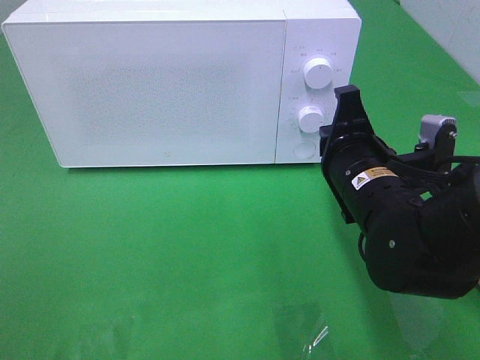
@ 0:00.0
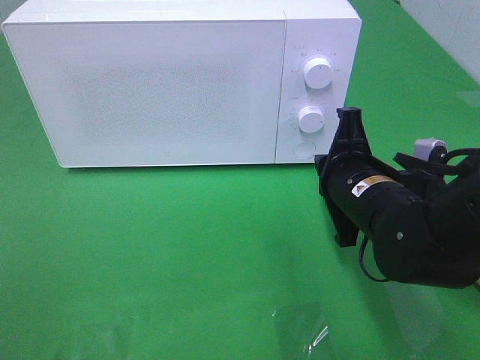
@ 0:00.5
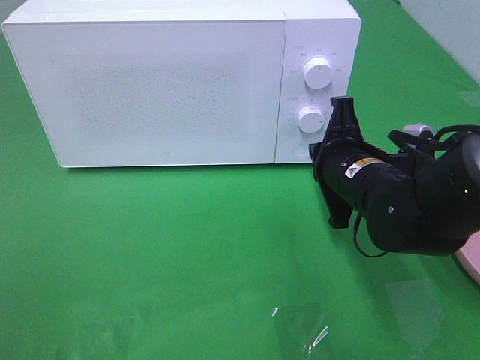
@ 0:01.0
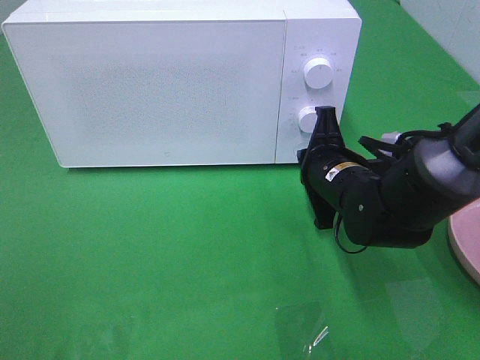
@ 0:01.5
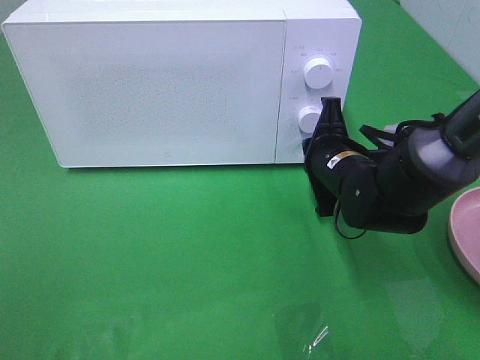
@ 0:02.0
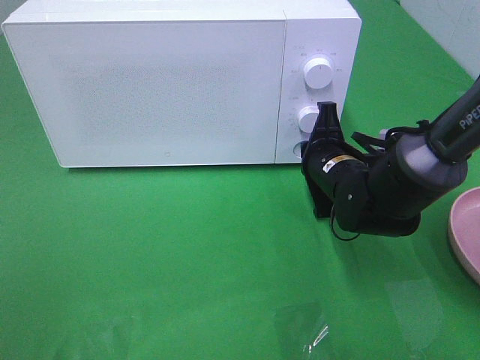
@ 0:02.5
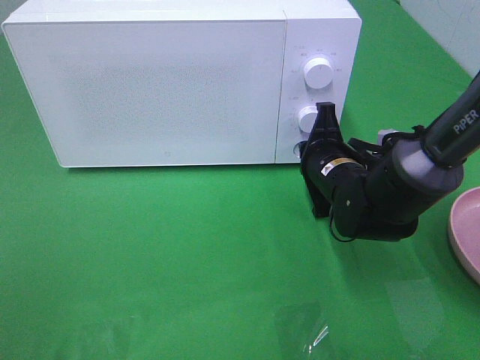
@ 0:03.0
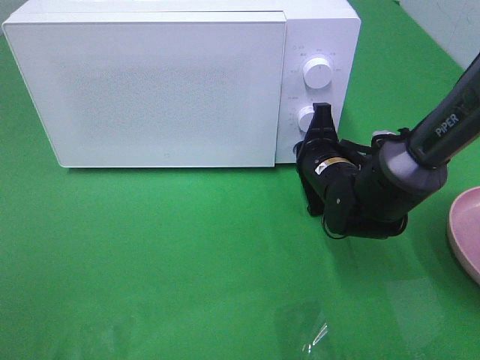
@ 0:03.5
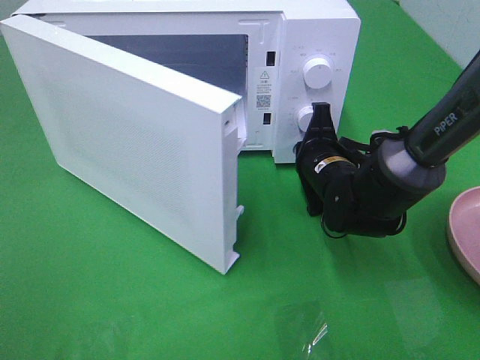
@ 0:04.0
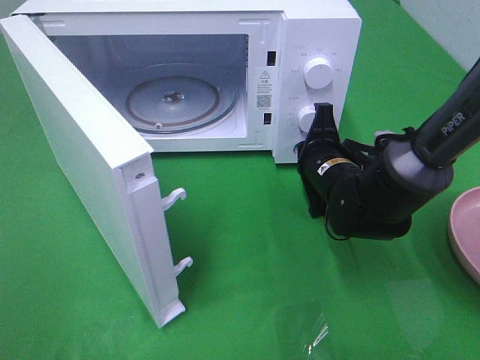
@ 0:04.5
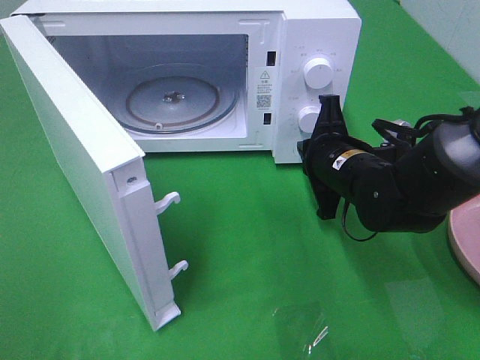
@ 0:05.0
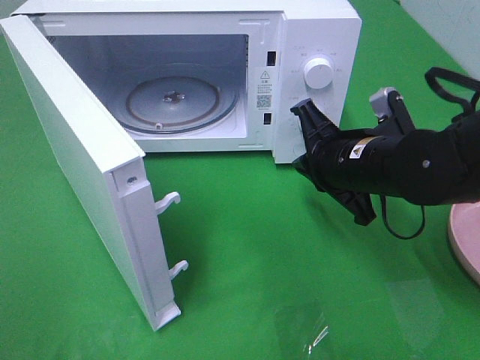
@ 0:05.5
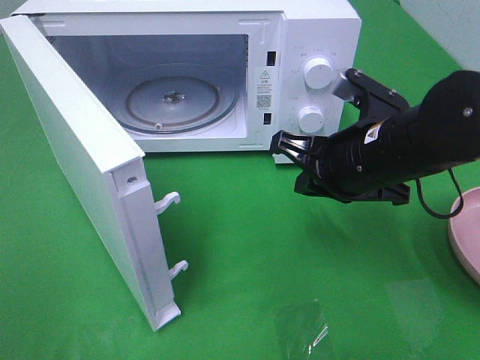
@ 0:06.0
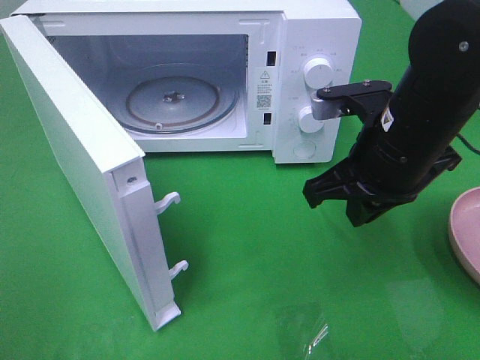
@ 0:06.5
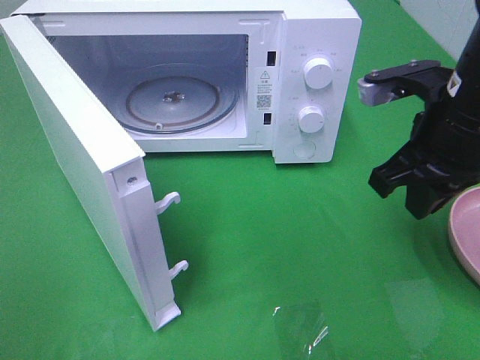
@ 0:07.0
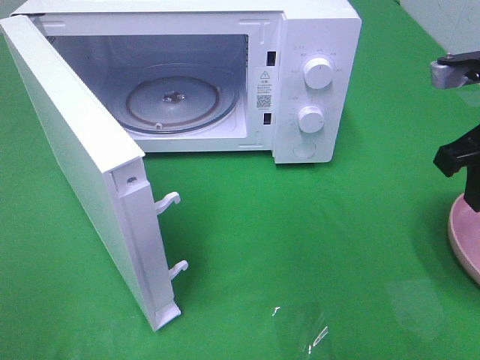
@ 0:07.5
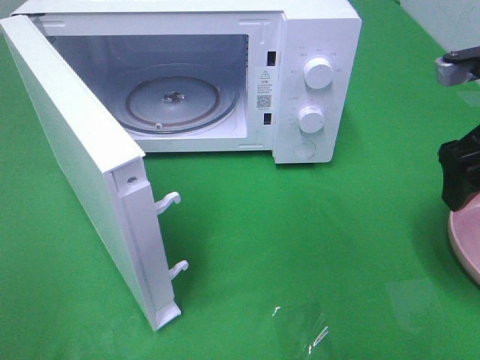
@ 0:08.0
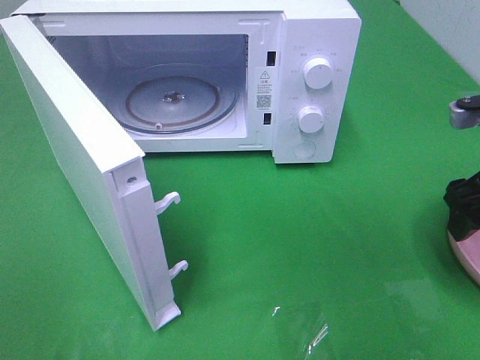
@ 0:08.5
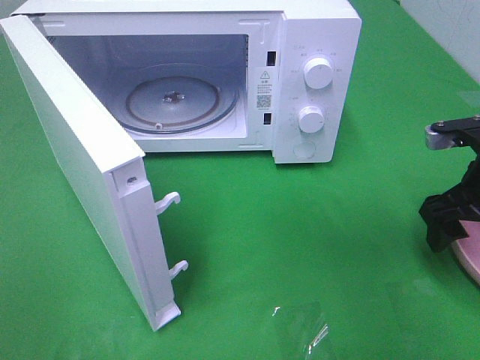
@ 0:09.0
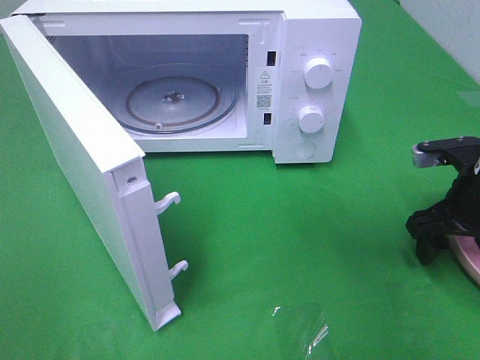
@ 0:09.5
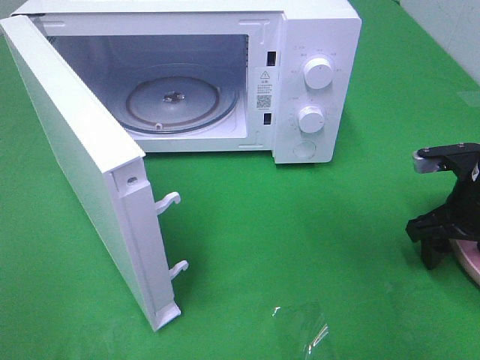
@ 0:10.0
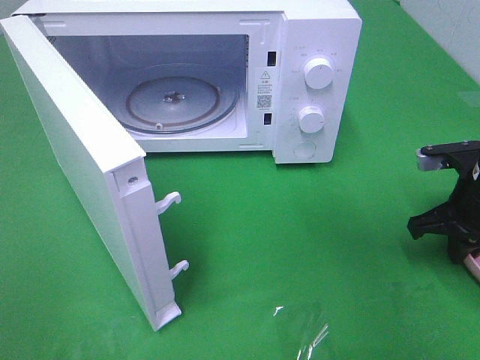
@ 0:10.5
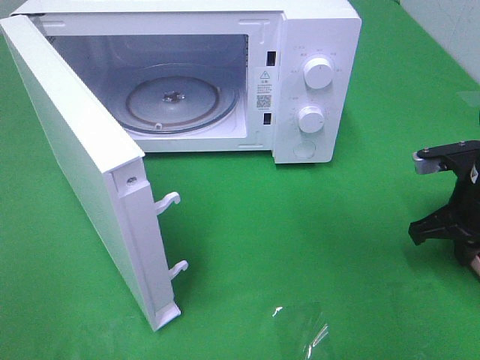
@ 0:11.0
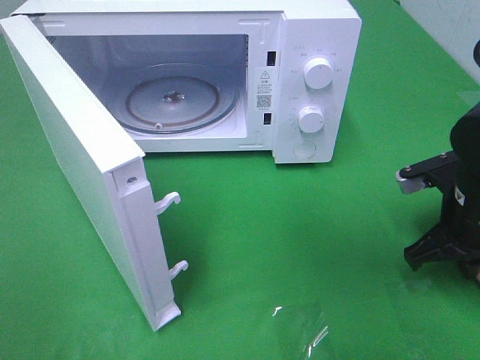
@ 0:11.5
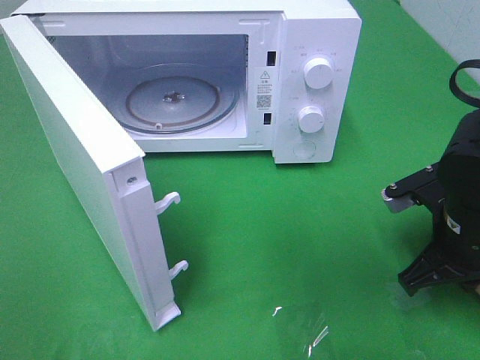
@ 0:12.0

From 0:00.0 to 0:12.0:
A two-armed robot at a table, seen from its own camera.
Task of the whole recording: Heat the burger.
Step, from 0:00.0 to 0:04.5: Right hand: press the switch.
Step, from 0:05.0 to 0:10.5: Right hand: grab the plate with the hamburger.
From 0:00.0 to 0:02.0: The right gripper travels forward and downward by some 10 cm.
From 0:04.0 to 0:06.0: The right gripper goes about 15 cm upward and backward.
From 0:06.0 to 0:08.0: The right gripper goes approximately 15 cm to the right and upward, and opens up.
From 0:08.0 to 0:10.0: The right gripper moves downward, approximately 15 cm.
From 0:10.0 to 0:12.0: The right gripper goes roughly 10 cm to the left and backward, and closes up.

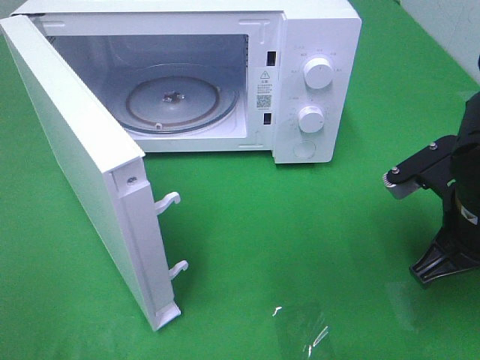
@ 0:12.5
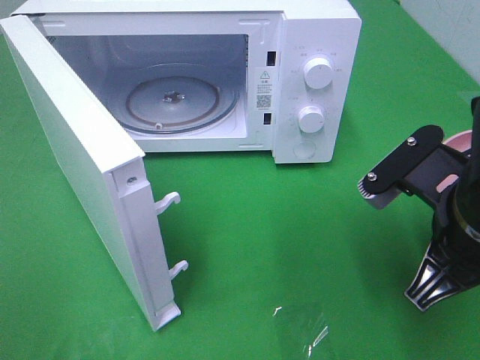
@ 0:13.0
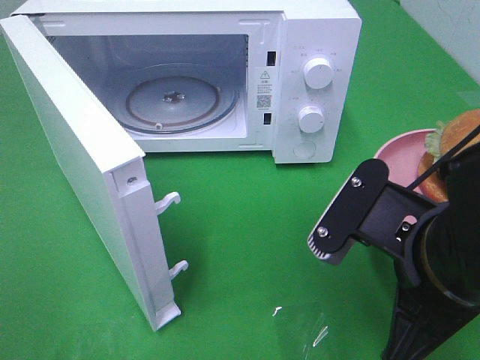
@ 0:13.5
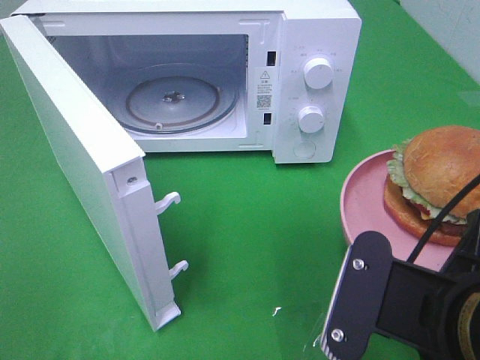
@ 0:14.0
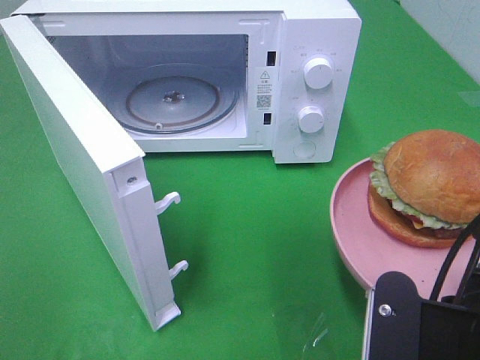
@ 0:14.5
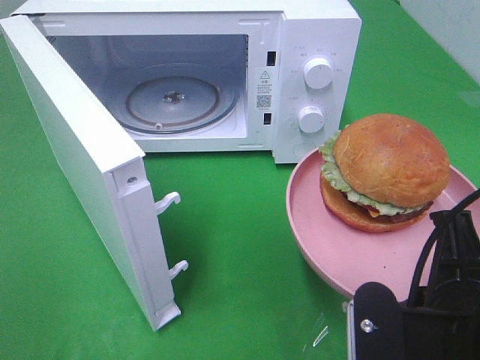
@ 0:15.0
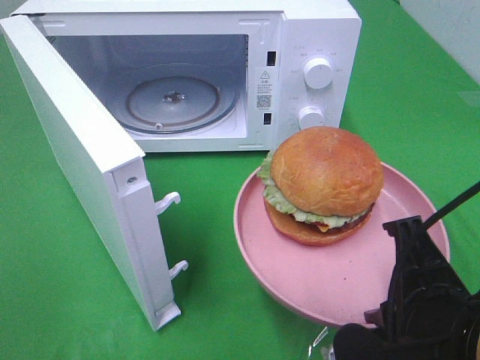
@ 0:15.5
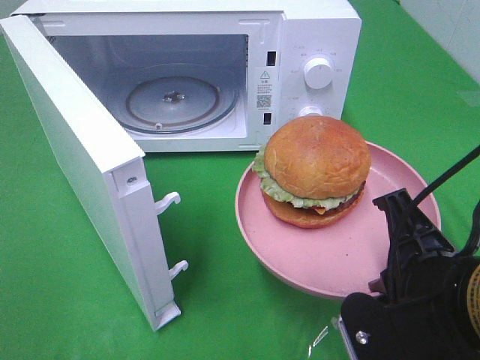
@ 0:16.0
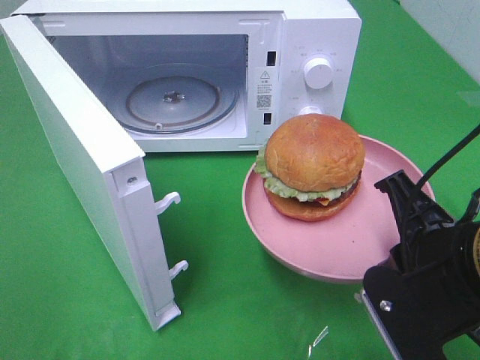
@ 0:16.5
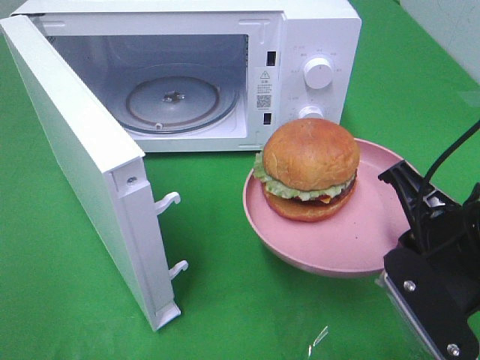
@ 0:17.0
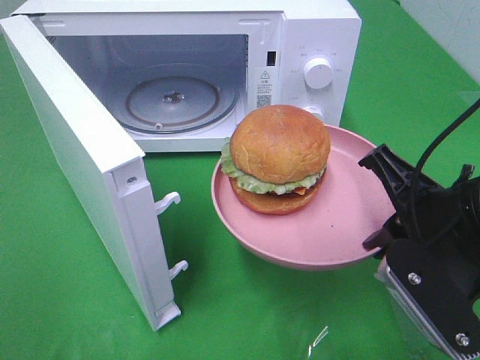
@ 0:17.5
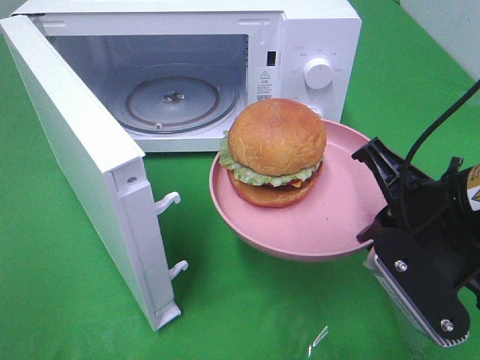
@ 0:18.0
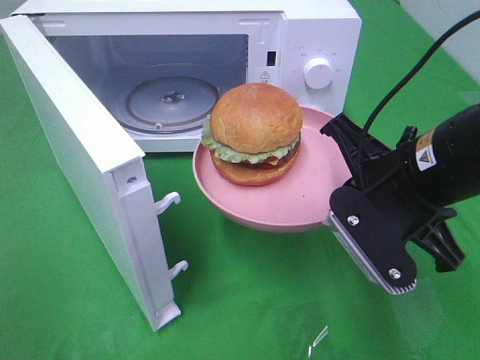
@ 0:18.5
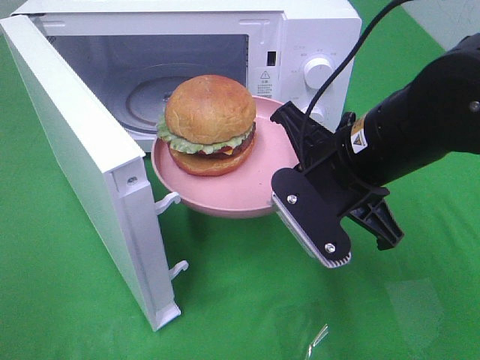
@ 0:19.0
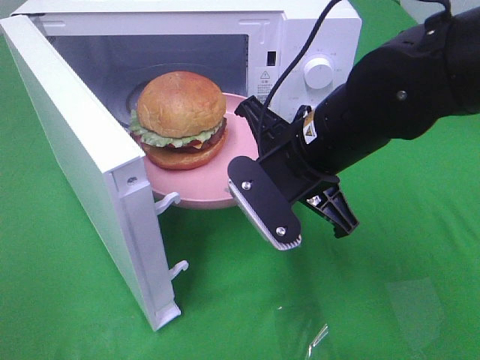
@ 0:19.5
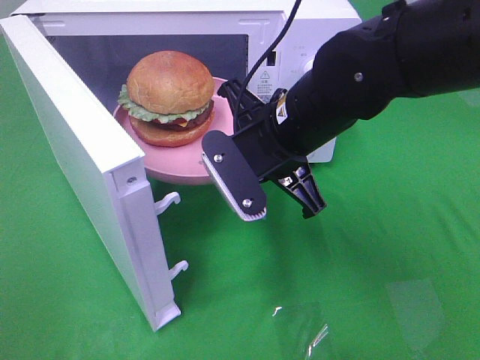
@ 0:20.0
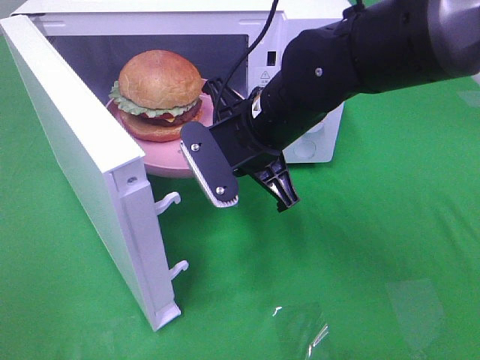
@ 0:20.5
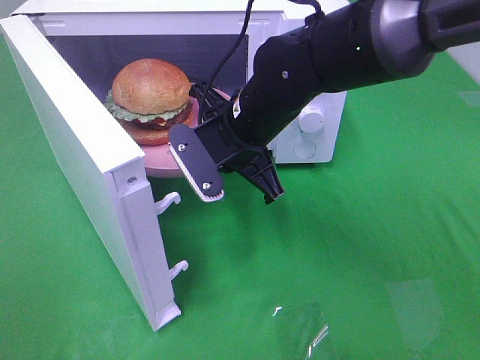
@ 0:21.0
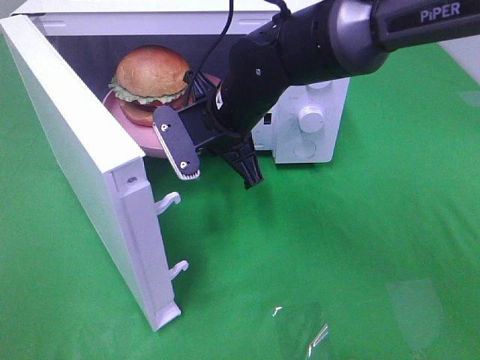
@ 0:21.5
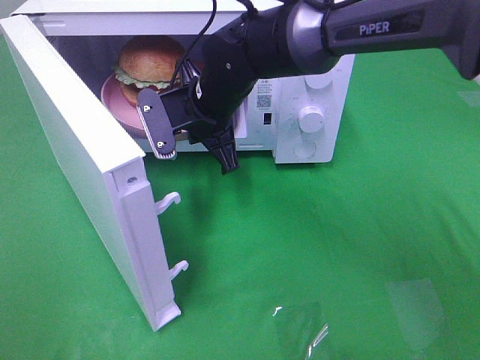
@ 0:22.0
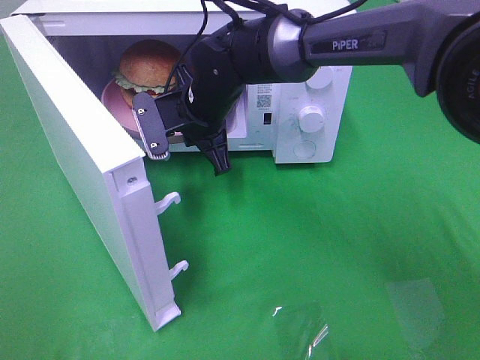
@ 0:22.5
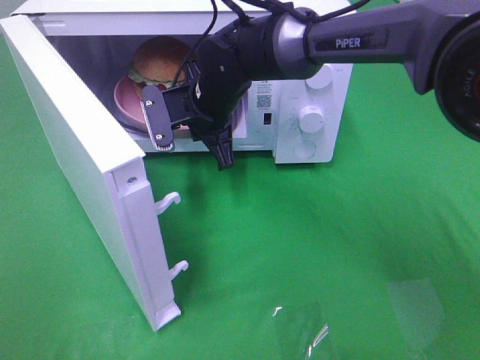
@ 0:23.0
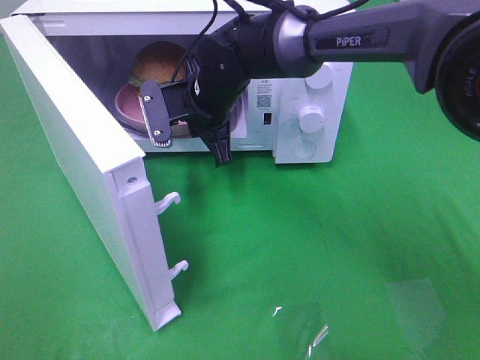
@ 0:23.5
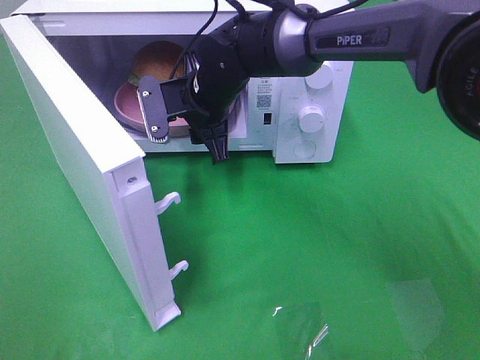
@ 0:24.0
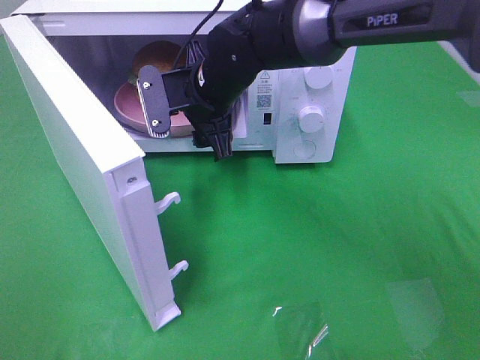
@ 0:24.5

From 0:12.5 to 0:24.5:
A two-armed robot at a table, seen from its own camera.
Task of the whole recording: Heat the burger.
Step, from 0:12.5 to 0:23.5: Right hand: place the plate in the microwave.
From 0:12.5 to 0:14.5: The right gripper heads backward and to the left, covering roughly 15 cm.
From 0:14.5 to 0:16.5: The right gripper is displaced forward by approximately 5 cm.
From 0:16.5 to 0:18.5: The right gripper shifts some 10 cm forward.
From 0:18.5 to 0:20.5: The right gripper travels to the left and forward by about 15 cm.
From 0:20.5 to 0:22.5: The right gripper moves forward and to the left, about 10 cm.
From 0:22.5 to 0:24.5: The right gripper opens its fingers.

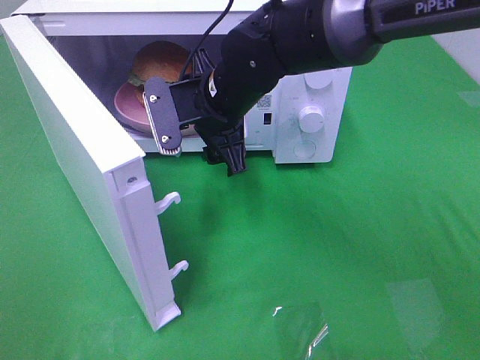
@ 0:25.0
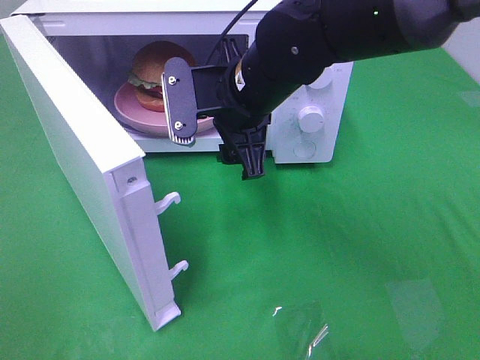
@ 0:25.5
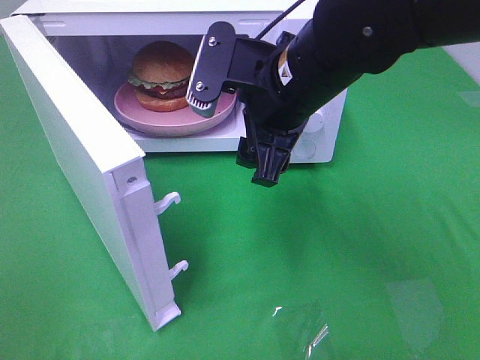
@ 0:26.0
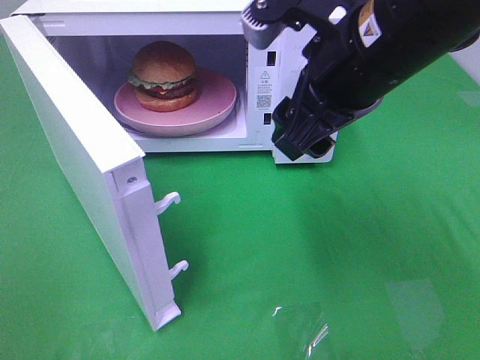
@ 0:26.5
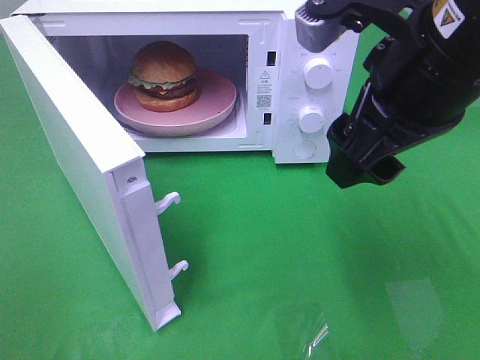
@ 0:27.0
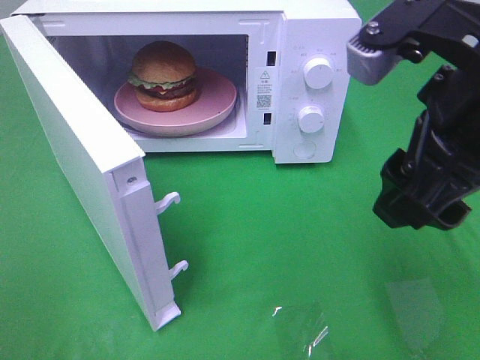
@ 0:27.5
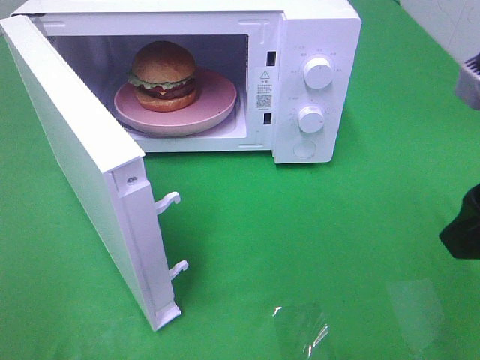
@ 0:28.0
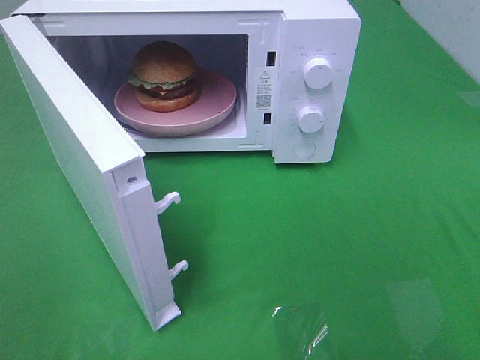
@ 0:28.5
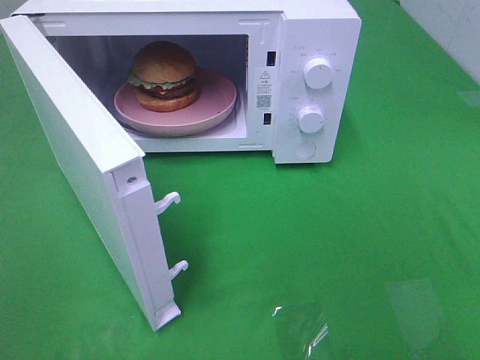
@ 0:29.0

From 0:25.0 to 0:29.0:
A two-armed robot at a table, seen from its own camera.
Task of the whole recording: Heat the burger.
From 0:25.0 to 0:27.0: The right gripper shifts approximately 25 cm backward, to the right and upward.
From 0:27.0 to 0:29.0: The right gripper is displaced backward and to the right by roughly 25 cm.
